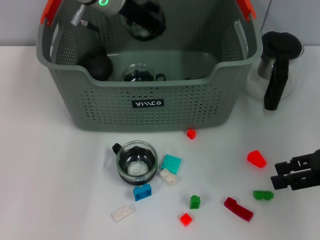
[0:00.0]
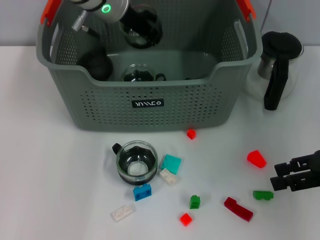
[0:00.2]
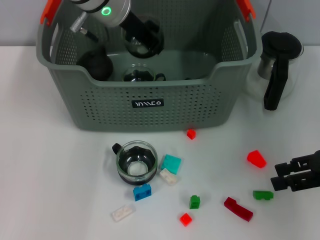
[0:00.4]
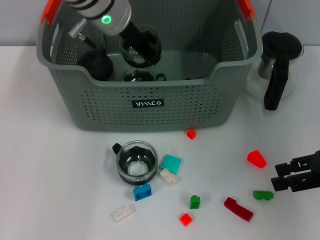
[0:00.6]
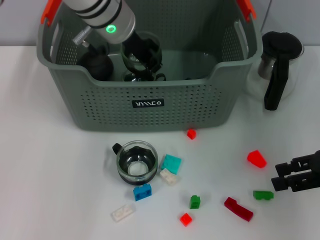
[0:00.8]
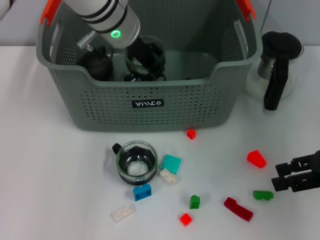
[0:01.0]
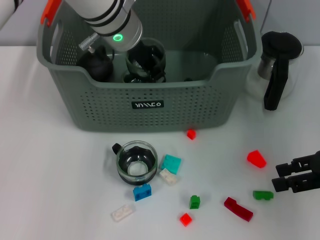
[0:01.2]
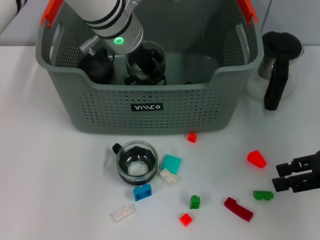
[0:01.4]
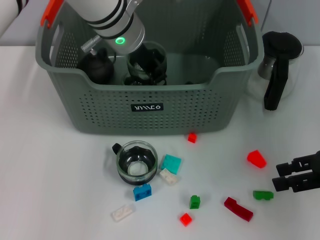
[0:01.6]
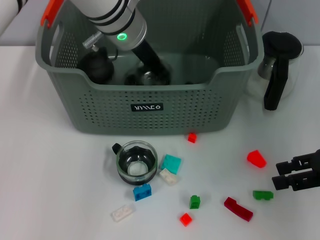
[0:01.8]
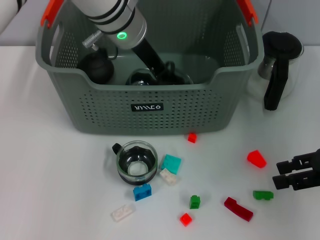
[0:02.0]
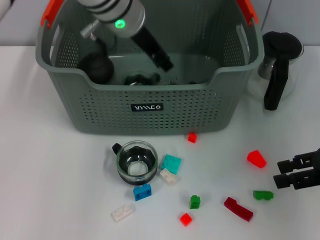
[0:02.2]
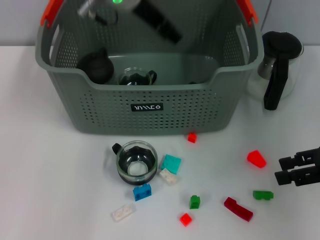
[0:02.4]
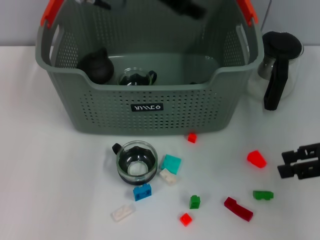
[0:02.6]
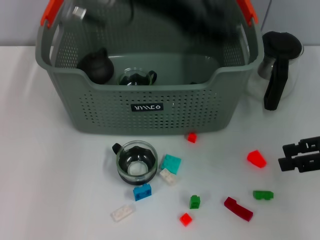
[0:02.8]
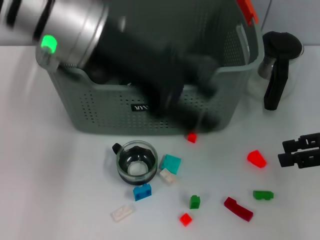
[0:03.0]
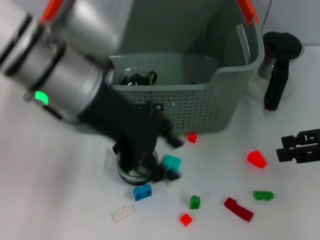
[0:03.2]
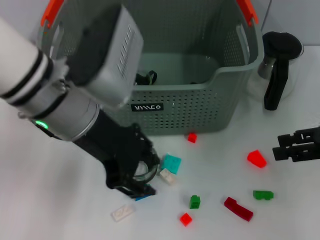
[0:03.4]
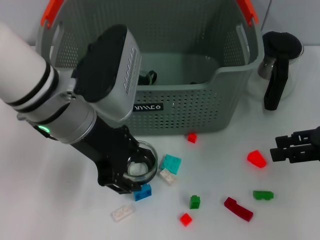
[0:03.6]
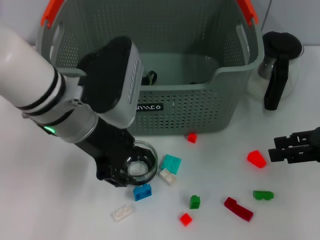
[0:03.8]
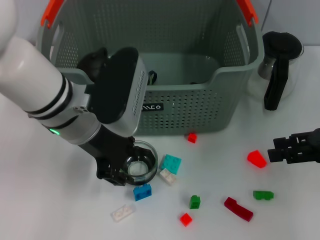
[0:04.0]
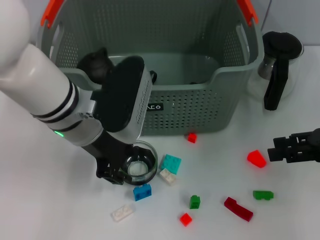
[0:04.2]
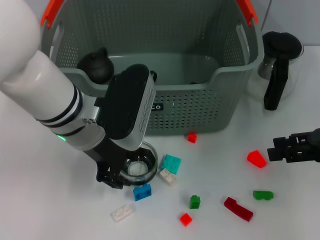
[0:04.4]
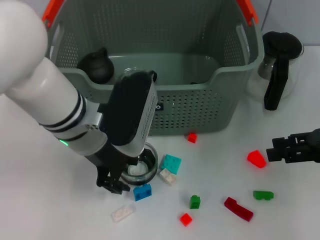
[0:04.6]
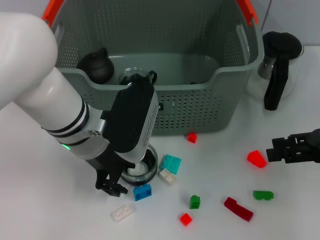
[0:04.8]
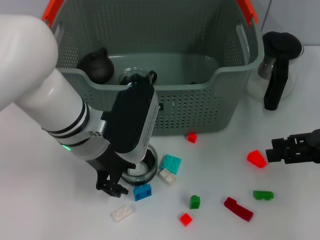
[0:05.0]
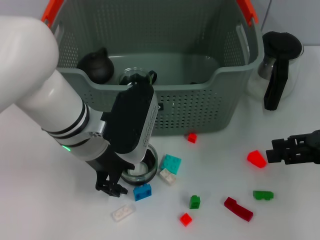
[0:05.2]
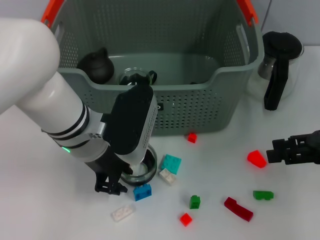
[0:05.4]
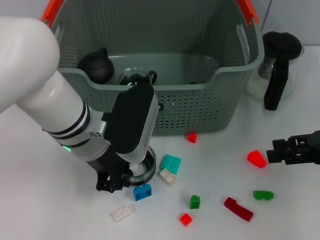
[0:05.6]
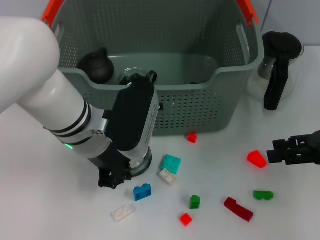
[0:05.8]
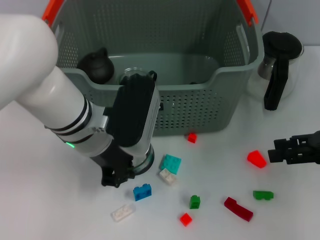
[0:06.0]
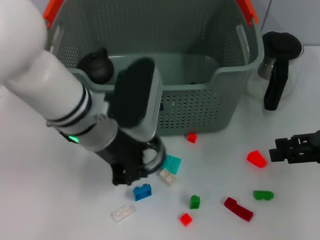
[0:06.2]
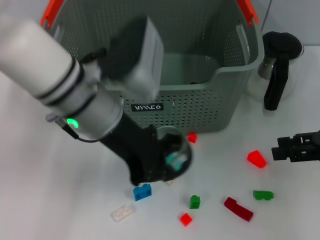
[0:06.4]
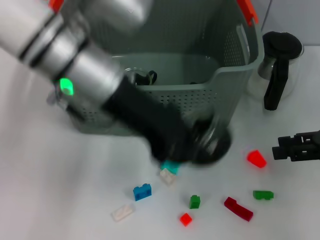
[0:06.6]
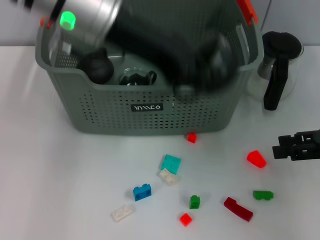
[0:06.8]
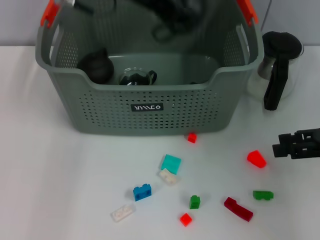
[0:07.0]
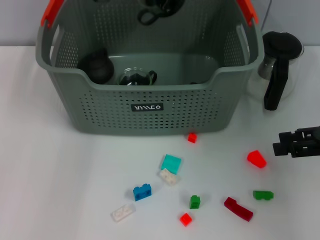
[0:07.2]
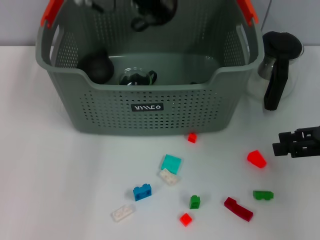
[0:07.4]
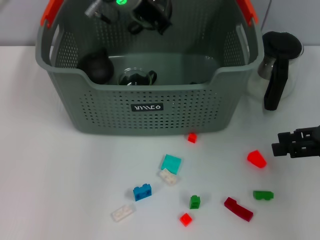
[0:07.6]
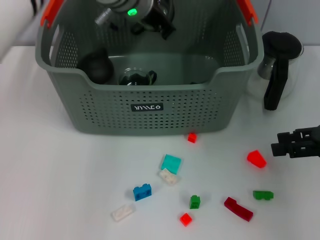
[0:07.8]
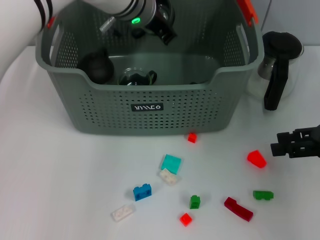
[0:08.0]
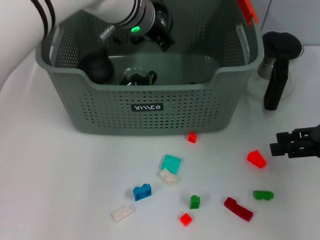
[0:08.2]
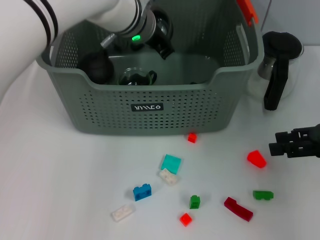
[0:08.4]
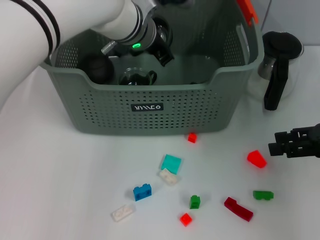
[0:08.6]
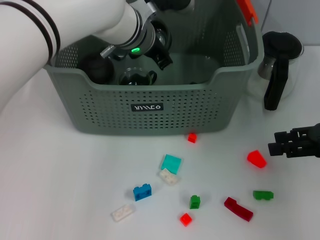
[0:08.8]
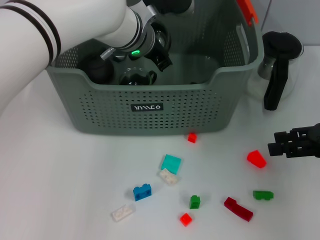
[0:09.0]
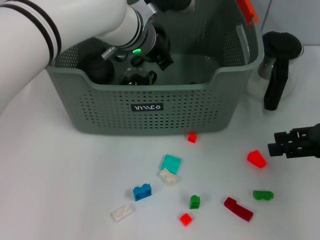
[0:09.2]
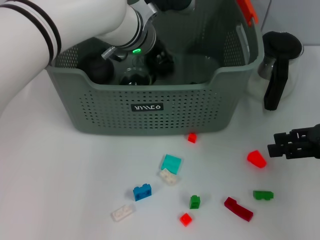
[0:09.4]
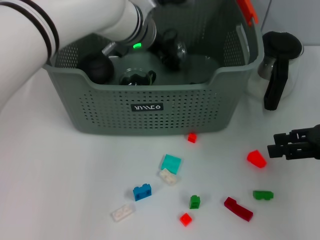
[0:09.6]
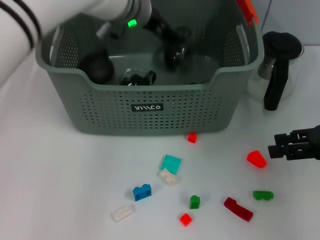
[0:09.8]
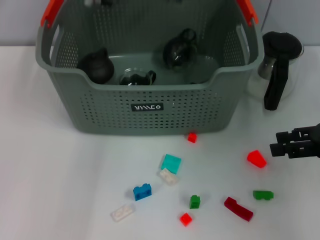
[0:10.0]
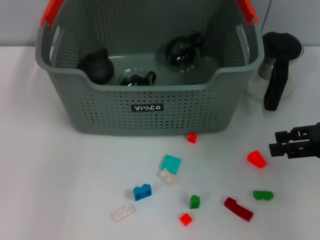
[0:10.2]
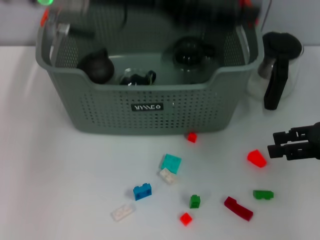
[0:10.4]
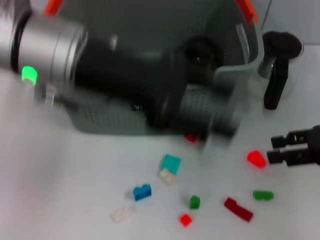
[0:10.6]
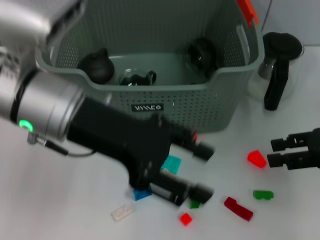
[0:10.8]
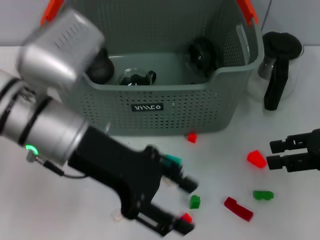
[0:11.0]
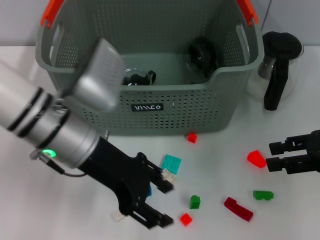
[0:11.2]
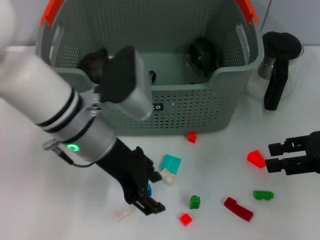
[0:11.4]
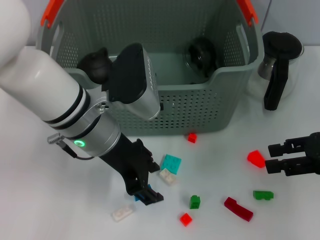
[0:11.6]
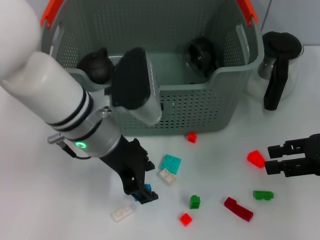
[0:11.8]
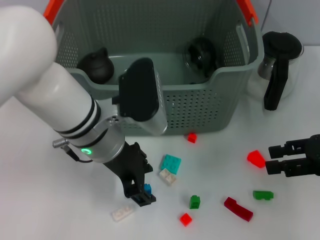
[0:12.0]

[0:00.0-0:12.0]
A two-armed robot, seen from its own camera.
Task of the whole recording: pick up the teacup on the table and place it into the storage bin, pick up the block on the table and place it into the storage bin.
Step, 0.0 to 2.2 s: Place the cup in the storage box with left gripper.
Step, 2.4 to 5.6 s: Grasp the cup with left gripper.
Step, 6.0 to 9.6 s: Place the cup in the storage box with left gripper.
0.0 to 1.6 s: The left gripper moves approximately 5 cm.
1.6 to 3.0 s: The left gripper moves backward, upward and to the left, some 15 cm, and opens.
3.0 to 4.4 s: The left gripper travels downward by approximately 10 cm.
4.4 to 6.0 s: The left gripper closes its fingers.
6.0 to 7.6 s: The left gripper shifts roughly 20 cm forward and upward.
7.6 to 9.0 s: The left gripper is displaced downward by some 5 cm.
9.0 to 10.4 s: The left gripper moves upward, backward and to the left, about 20 cm, and opens its fingers.
10.4 to 12.0 s: The left gripper moves downward, some 15 cm.

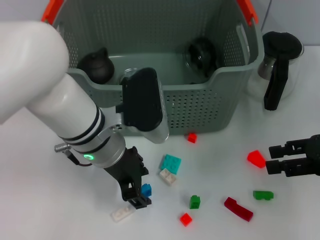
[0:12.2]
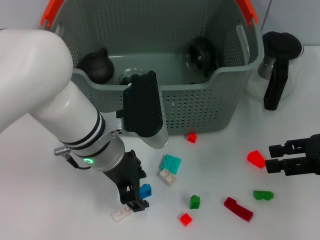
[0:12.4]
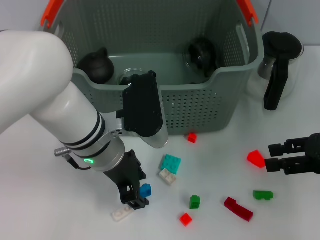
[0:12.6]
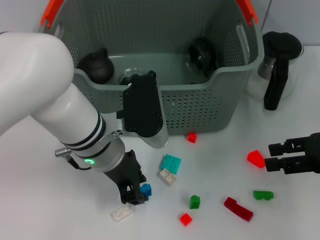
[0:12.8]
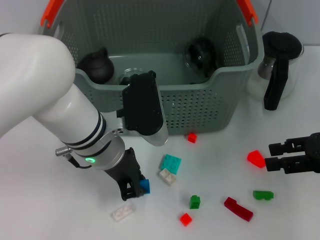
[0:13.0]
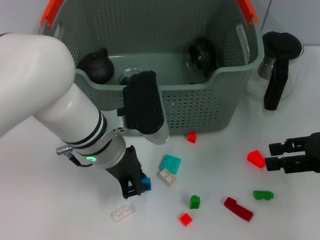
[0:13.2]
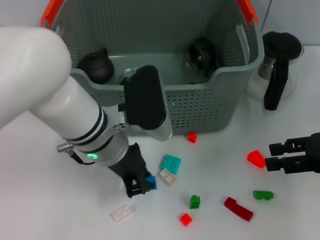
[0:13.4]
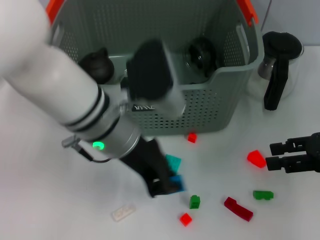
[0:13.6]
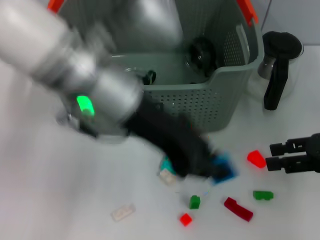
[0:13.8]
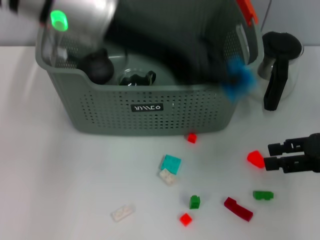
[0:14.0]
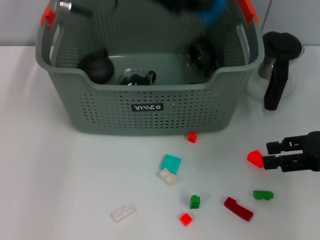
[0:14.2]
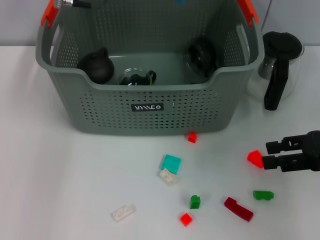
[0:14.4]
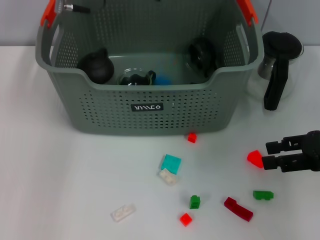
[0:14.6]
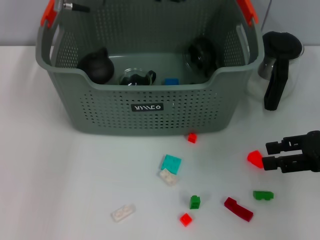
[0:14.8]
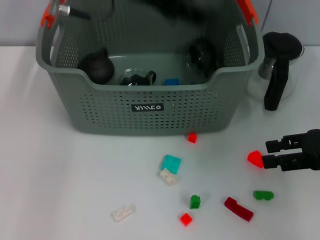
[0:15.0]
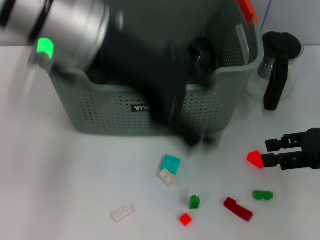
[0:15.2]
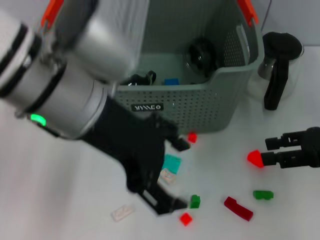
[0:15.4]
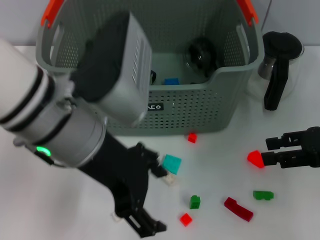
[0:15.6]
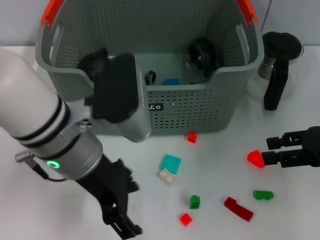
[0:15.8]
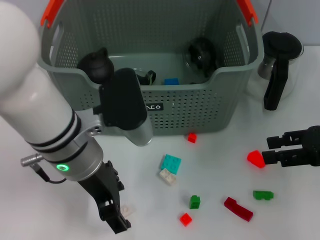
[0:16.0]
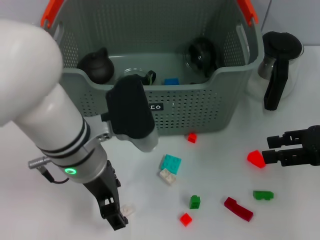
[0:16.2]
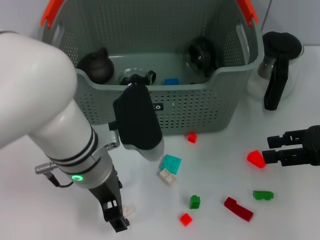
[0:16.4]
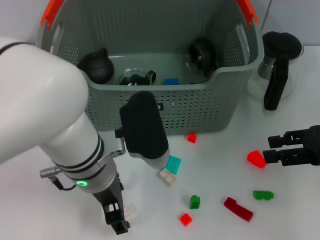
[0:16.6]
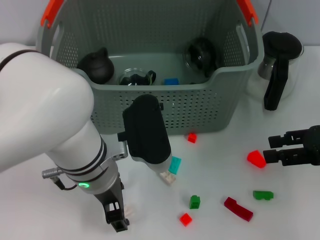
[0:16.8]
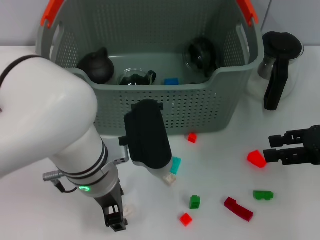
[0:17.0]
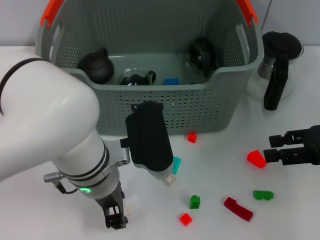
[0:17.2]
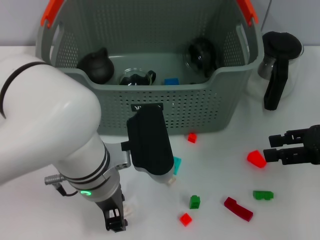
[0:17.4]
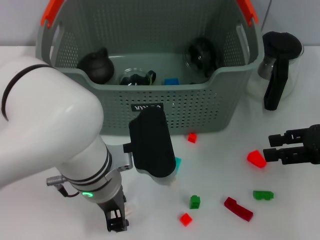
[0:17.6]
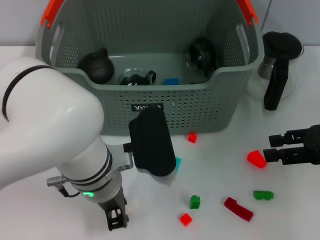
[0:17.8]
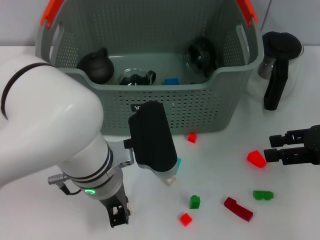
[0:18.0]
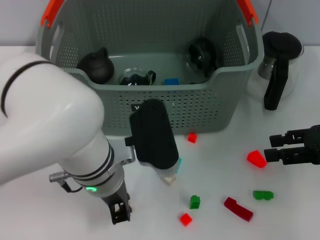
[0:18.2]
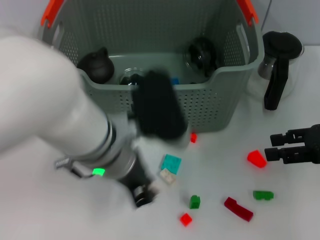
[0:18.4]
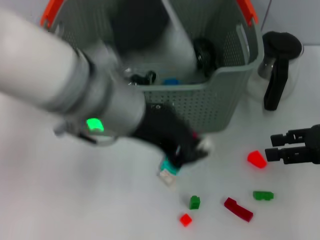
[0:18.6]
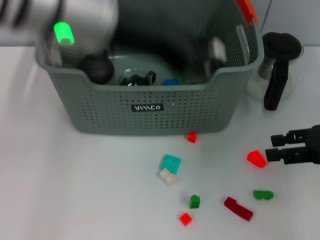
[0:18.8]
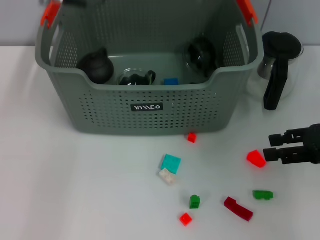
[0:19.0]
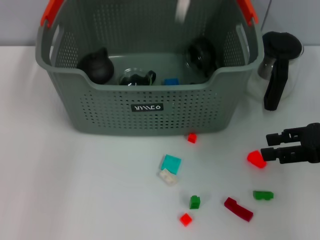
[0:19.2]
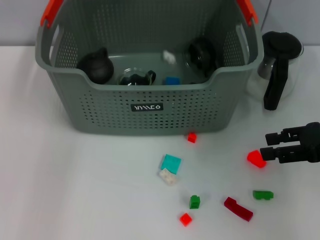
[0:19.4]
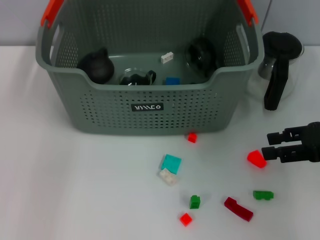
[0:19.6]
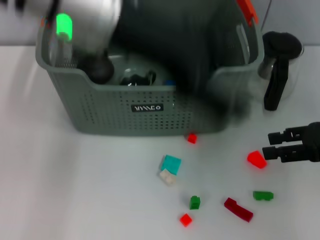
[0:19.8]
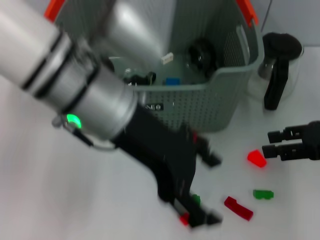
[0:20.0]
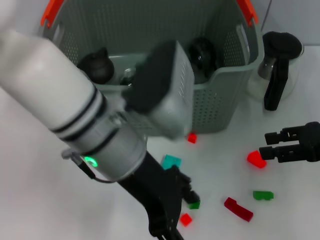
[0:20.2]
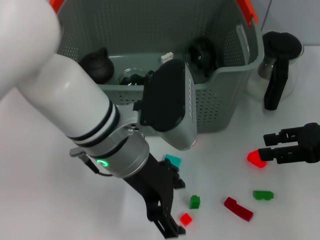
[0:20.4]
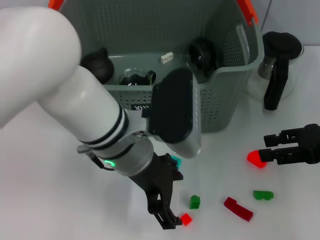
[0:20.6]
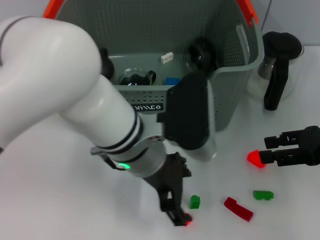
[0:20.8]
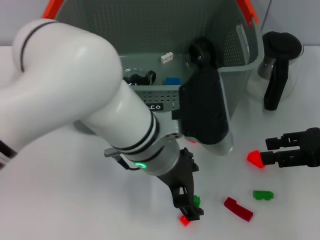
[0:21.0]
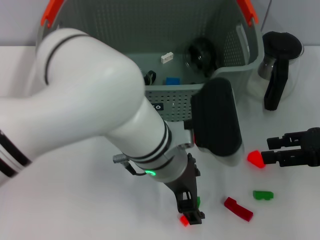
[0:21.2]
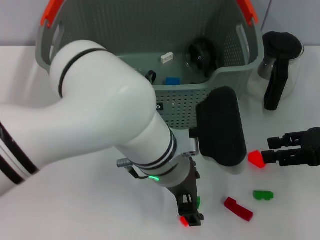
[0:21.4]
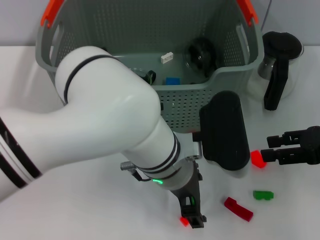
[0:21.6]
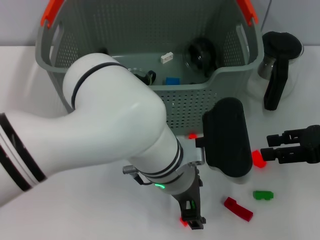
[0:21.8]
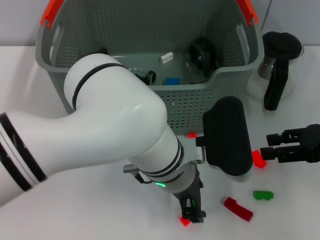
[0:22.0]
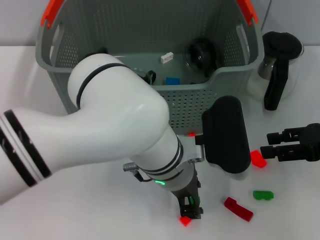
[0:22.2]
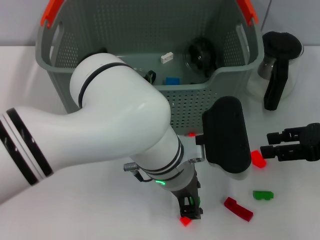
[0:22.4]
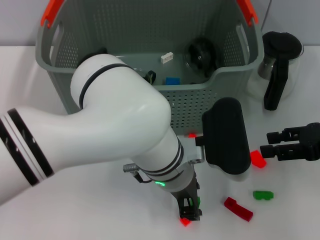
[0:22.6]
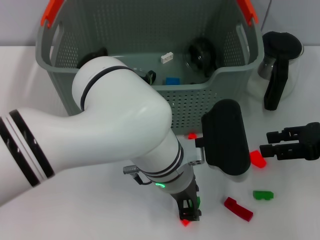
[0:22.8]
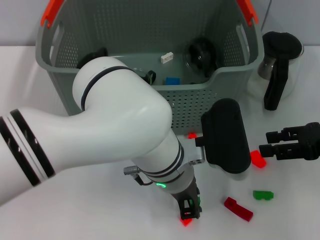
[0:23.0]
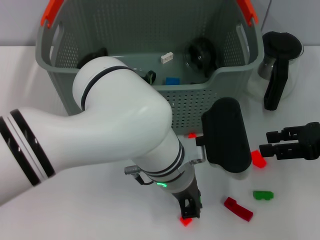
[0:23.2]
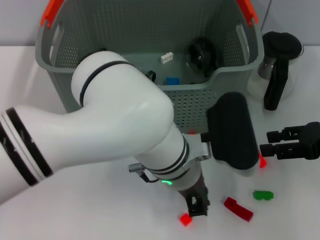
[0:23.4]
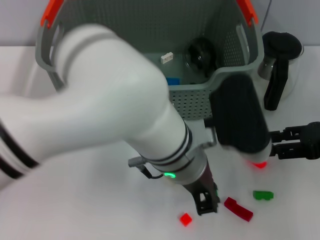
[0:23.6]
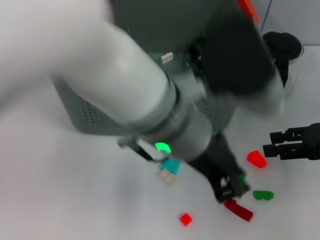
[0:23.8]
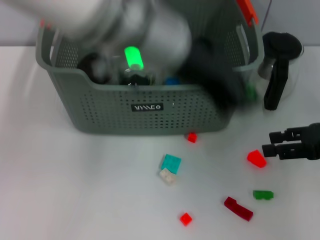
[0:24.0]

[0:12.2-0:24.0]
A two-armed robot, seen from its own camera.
Task of the whole recording: pick up the teacup on the table and place it into the storage bin, pick up the block on the table and place it into the storage bin.
Step, 13.2 to 14.6 s: Place the dark blue block in the storage box with left gripper.
Step, 14.8 to 17.8 s: Grasp the white block with left gripper.
Step, 18.2 to 19.4 s: Place the white block in the storage box with left gripper.
Step, 19.6 to 23.0 s: Grasp the green block with left gripper.
12.2 to 13.6 s: The left gripper is displaced upward by about 5 cm, and closes up.
13.6 to 15.2 s: The left gripper heads upward, covering some 10 cm, goes forward and returns, some 15 cm each way, and opens its fingers.
15.2 to 16.6 s: The left gripper goes some 15 cm downward.
16.6 to 18.2 s: The left gripper closes its fingers.
18.2 to 19.6 s: The left gripper travels upward and forward by approximately 20 cm, and opens.
19.6 to 21.0 s: The left gripper is displaced downward, backward and to the right by approximately 20 cm.
21.0 to 22.6 s: The left gripper closes.
22.6 to 24.0 s: The left gripper moves upward, approximately 20 cm, and closes up.
